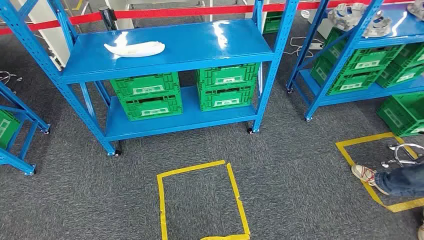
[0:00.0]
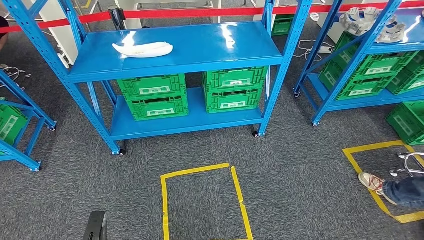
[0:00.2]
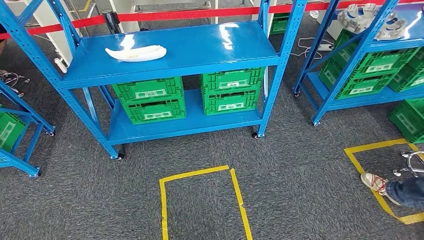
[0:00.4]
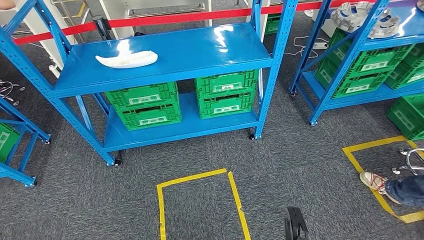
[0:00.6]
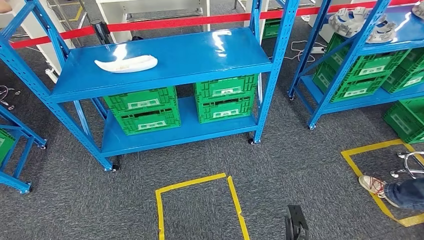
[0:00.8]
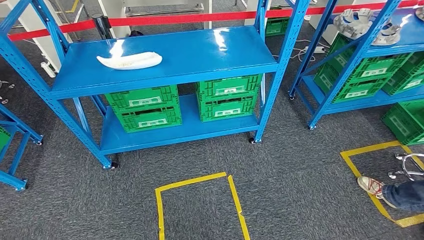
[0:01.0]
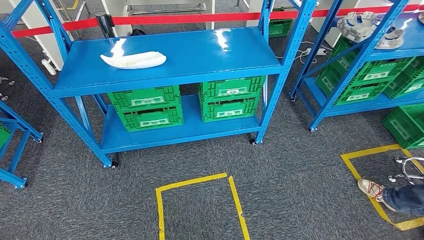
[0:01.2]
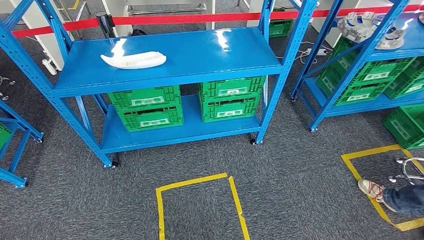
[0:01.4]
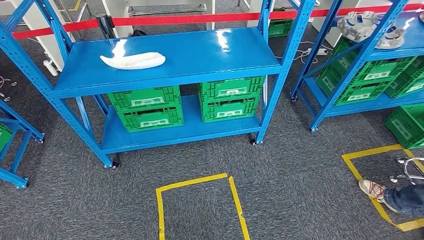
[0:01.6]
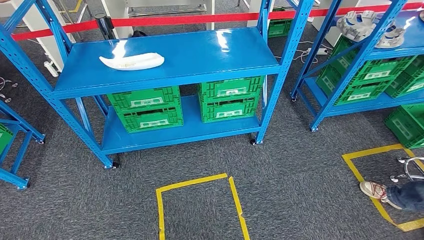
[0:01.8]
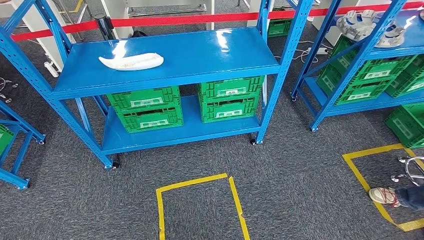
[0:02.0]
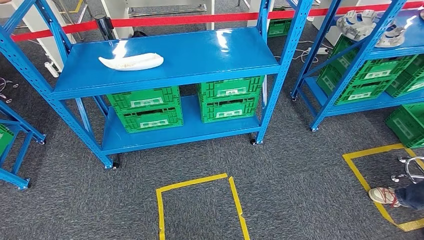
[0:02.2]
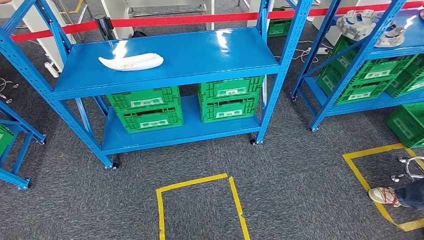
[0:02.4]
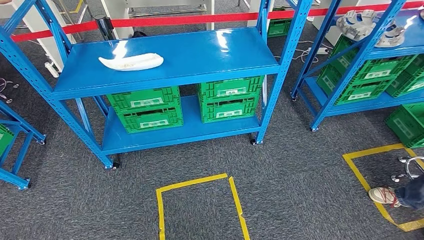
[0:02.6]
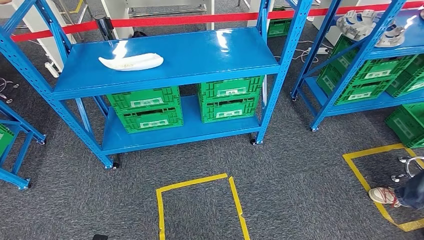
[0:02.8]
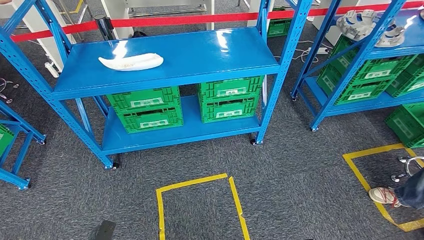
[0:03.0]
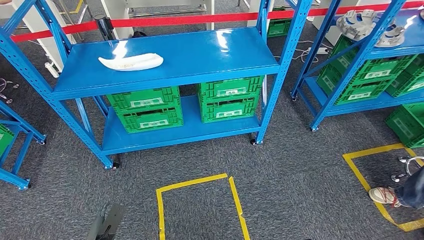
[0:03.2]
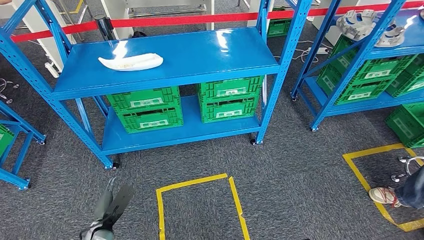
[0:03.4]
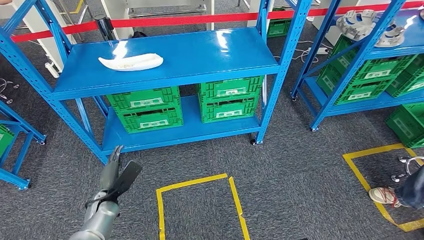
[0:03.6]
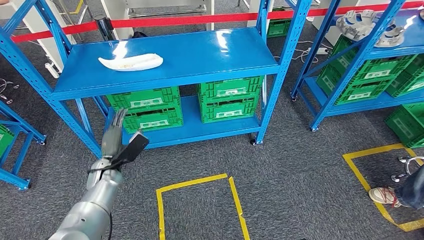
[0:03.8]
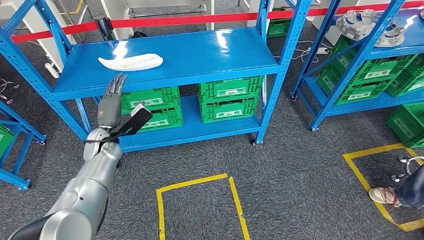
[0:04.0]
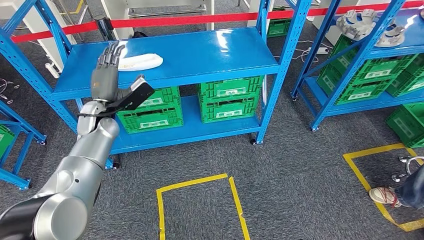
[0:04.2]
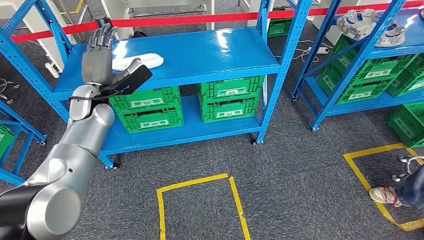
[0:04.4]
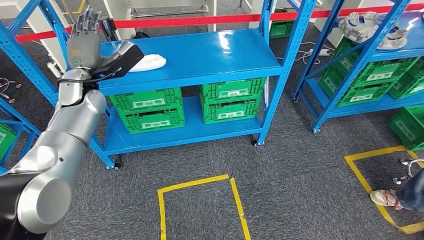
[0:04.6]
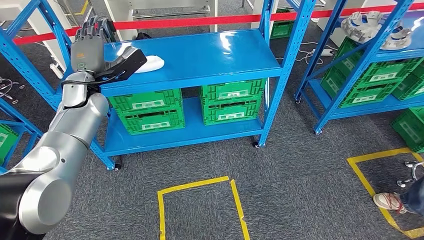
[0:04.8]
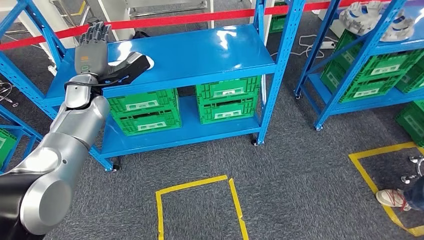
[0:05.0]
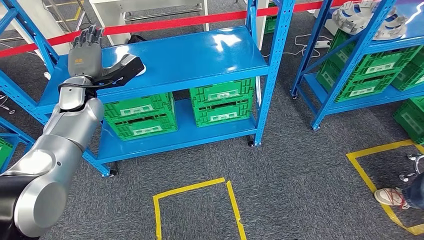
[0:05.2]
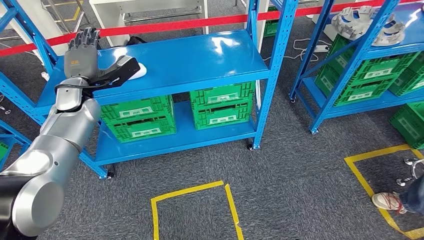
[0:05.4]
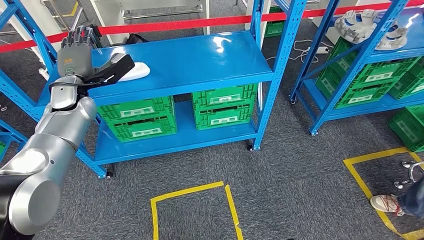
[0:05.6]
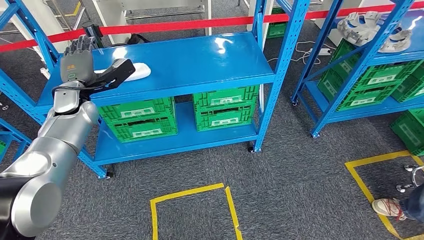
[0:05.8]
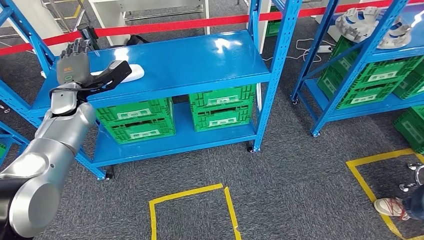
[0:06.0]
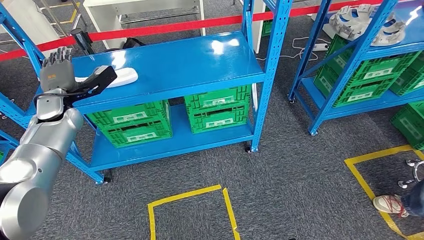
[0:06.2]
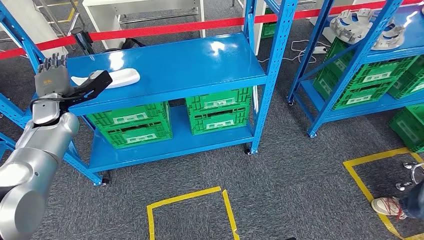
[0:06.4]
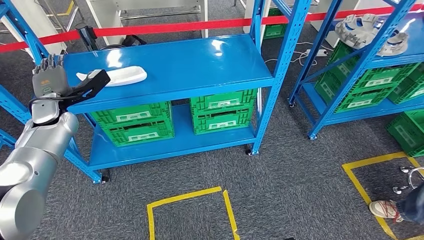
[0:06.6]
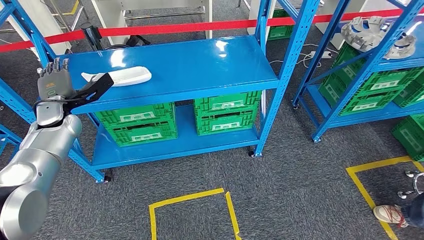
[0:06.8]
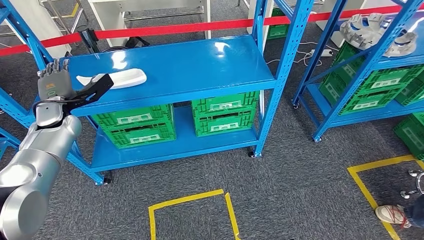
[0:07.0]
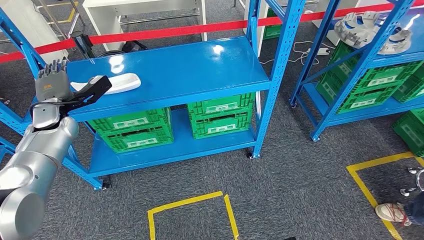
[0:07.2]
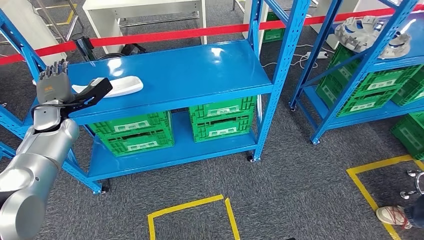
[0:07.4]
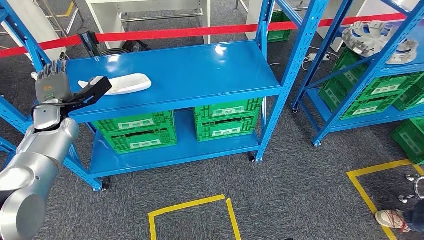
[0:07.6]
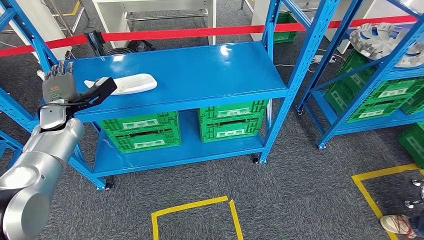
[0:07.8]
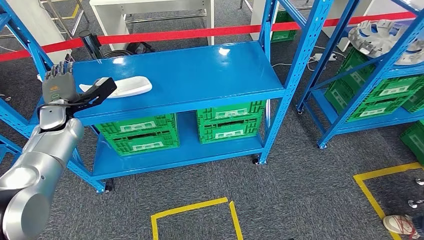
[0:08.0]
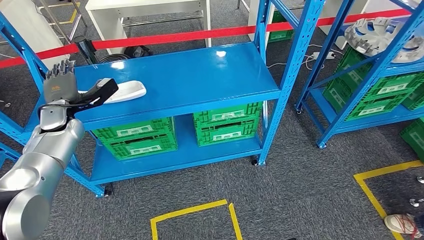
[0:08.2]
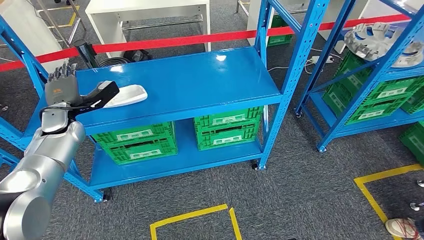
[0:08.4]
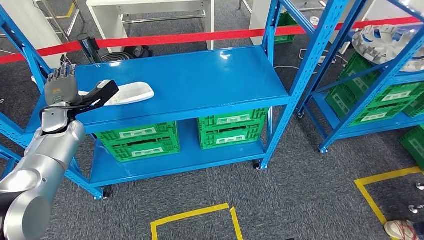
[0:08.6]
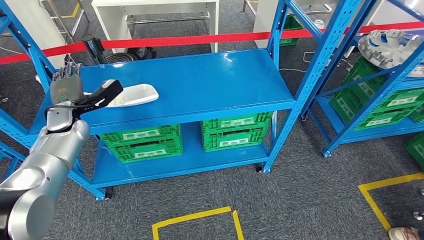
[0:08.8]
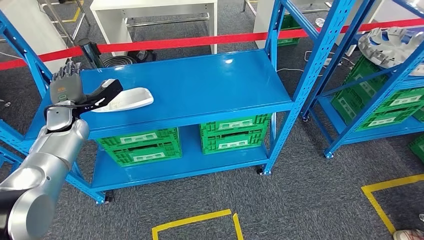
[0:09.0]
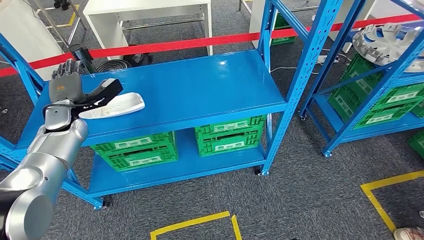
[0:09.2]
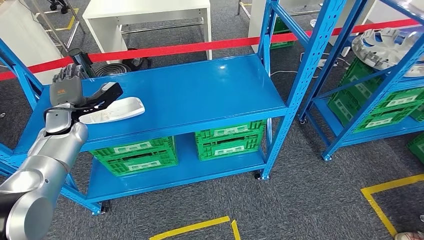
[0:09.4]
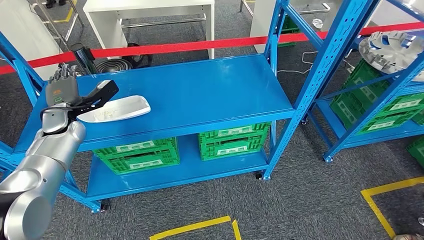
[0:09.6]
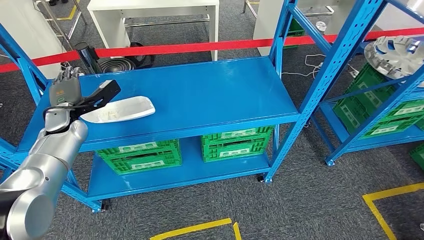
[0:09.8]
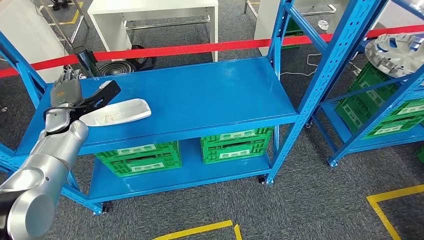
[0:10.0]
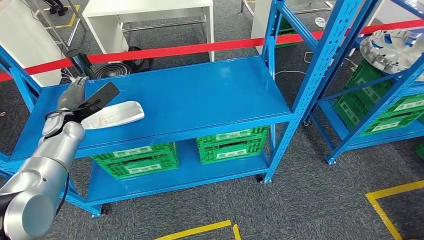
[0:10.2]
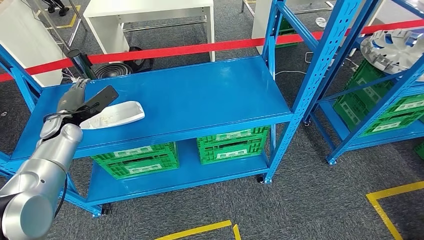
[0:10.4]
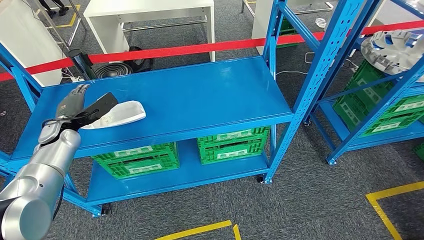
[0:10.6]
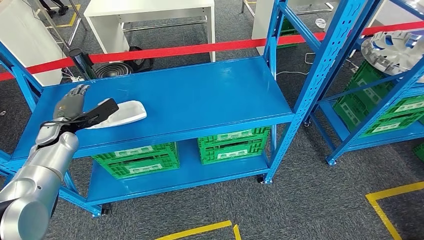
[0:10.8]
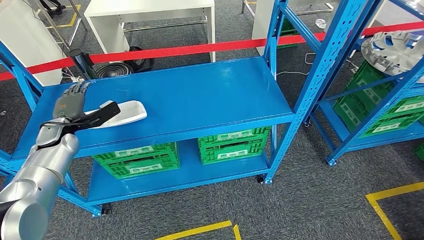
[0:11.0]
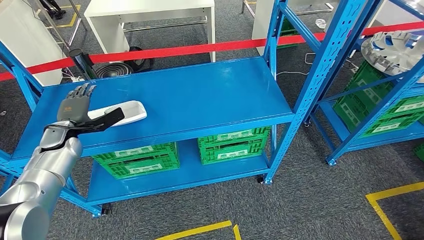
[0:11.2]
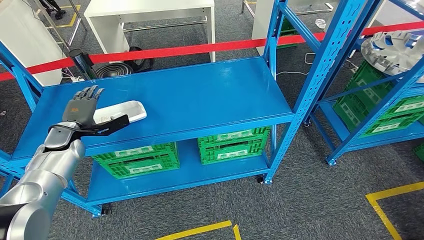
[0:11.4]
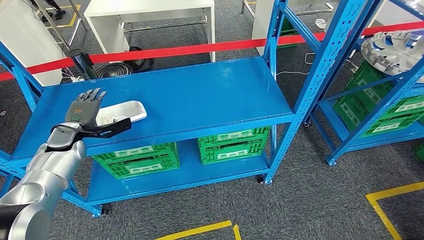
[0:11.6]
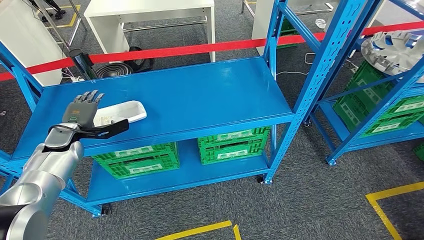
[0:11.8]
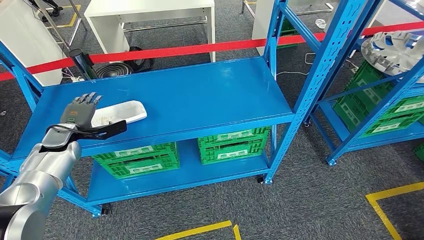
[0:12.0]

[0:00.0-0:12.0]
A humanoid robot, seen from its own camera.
0:01.6 to 0:03.0: The left hand heads forward, covering some 10 cm.
0:03.0 to 0:04.4: The left hand goes approximately 50 cm forward and upward.

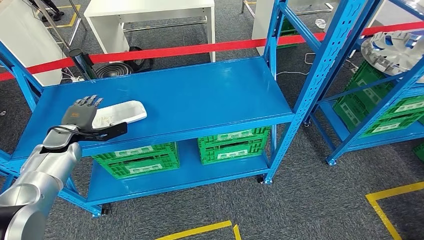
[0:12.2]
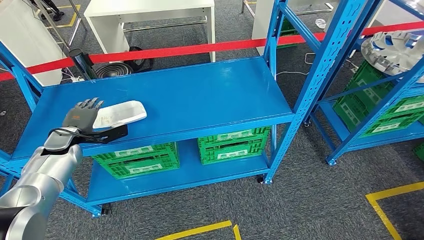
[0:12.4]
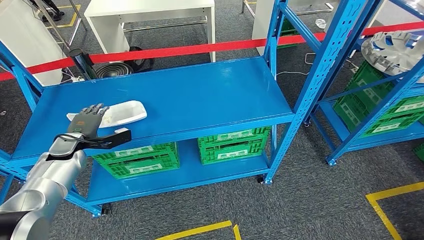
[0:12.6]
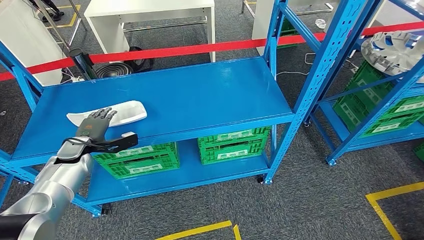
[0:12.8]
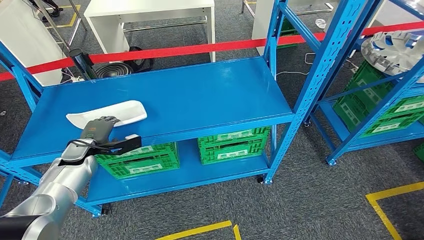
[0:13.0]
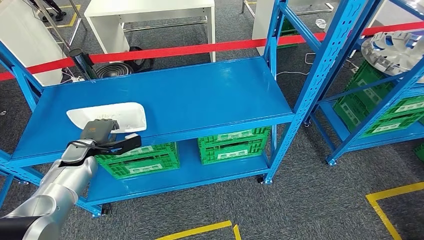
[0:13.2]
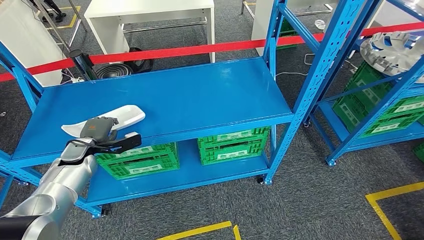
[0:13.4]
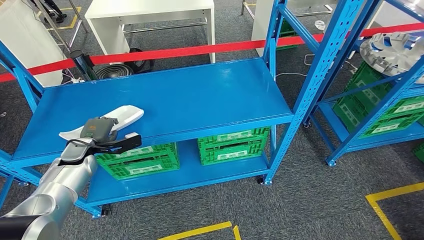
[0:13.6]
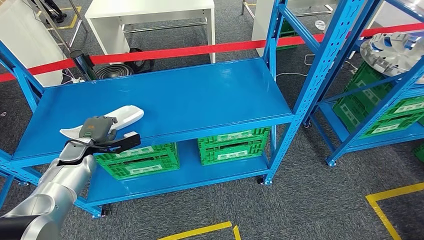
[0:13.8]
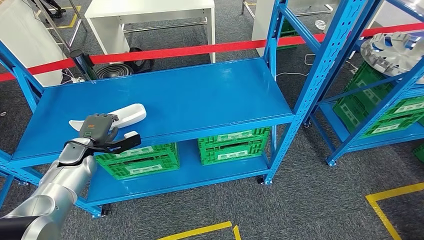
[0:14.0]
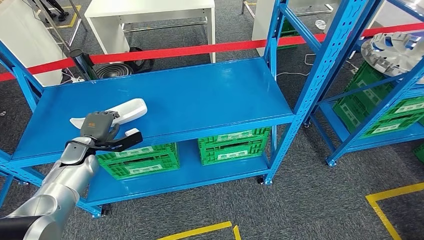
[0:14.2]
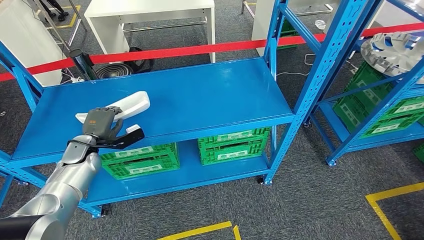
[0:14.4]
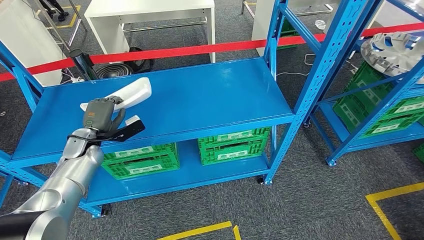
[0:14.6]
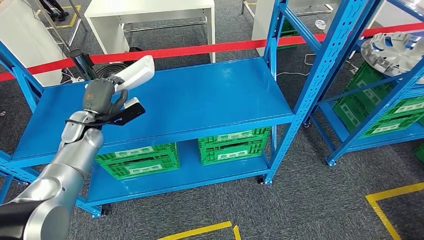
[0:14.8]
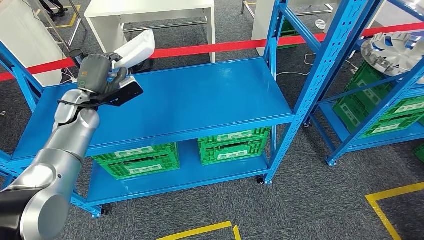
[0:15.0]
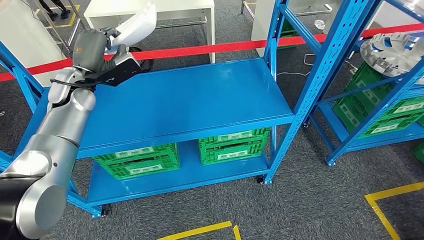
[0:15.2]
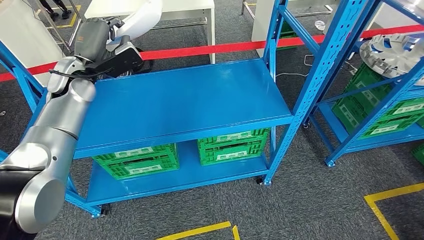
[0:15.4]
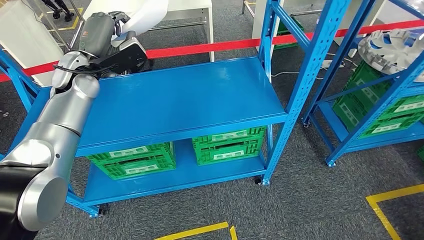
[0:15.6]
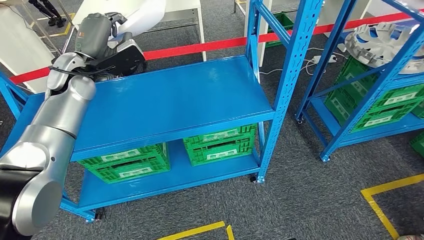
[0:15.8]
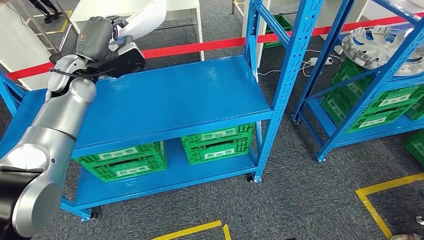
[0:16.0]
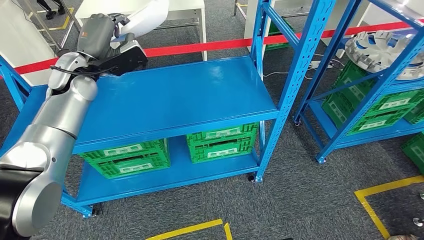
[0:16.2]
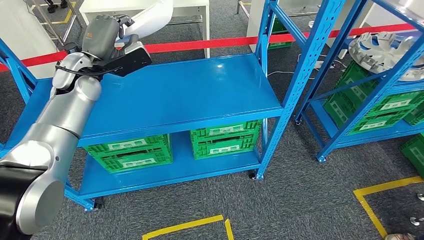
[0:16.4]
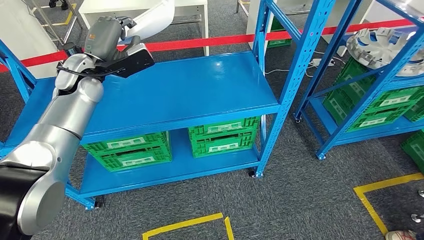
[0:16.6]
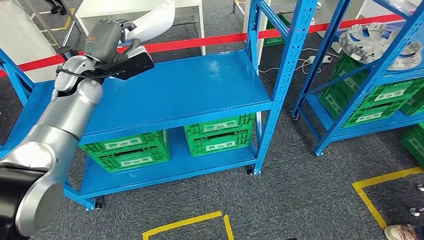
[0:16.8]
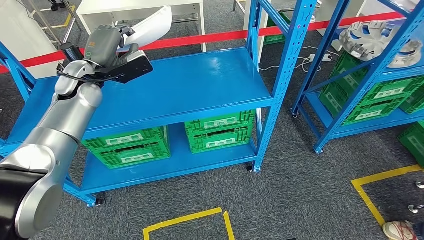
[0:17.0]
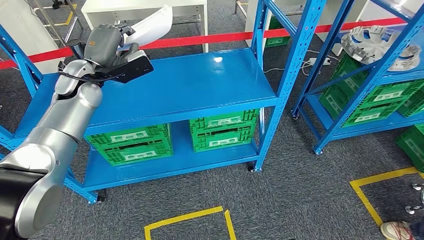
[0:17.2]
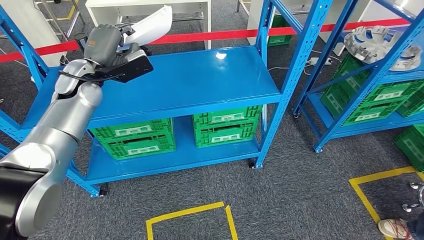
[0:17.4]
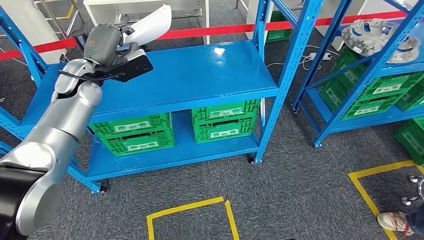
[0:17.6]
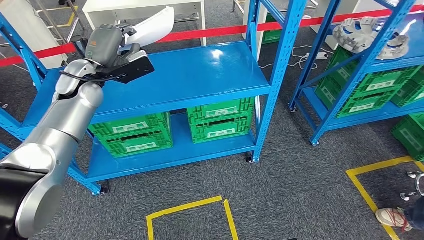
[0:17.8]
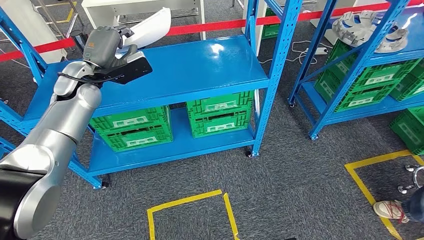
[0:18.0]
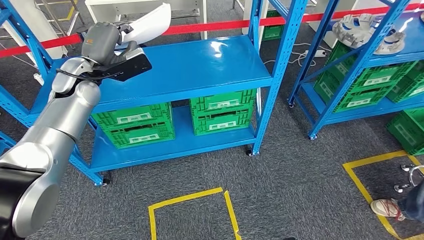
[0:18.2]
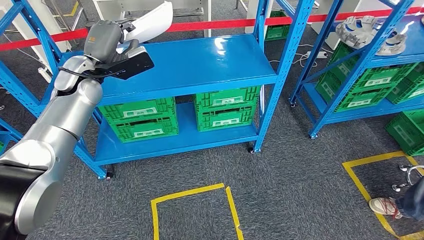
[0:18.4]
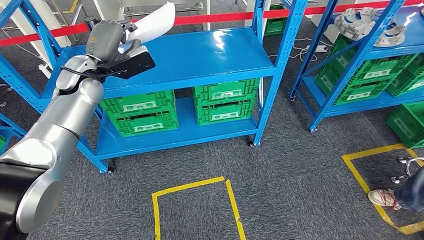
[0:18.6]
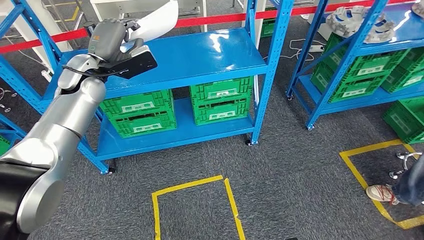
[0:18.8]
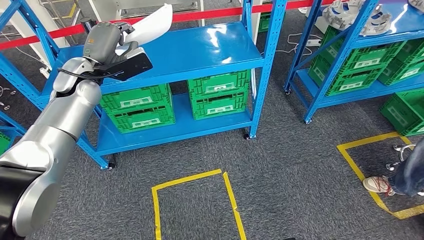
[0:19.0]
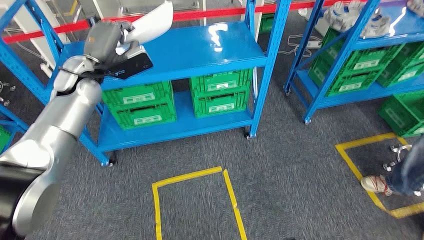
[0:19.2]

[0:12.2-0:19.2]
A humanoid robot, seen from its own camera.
Step, 0:12.2 to 0:15.4: Pick up the small component from the shelf.
0:12.2 to 0:13.6: The left hand shifts by approximately 5 cm.
0:13.6 to 0:15.0: The left hand travels upward, forward and to the right by about 15 cm.
